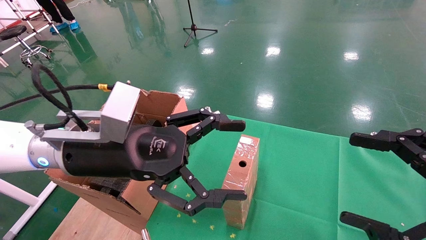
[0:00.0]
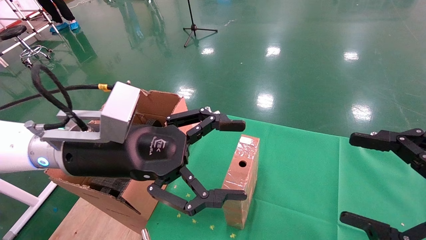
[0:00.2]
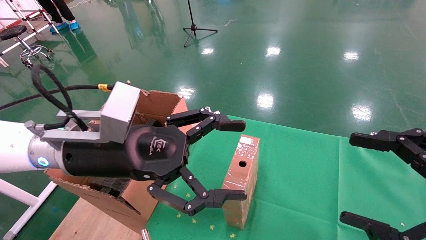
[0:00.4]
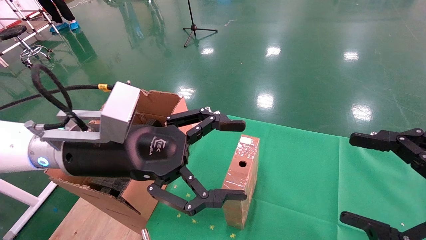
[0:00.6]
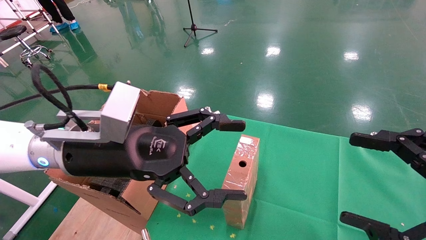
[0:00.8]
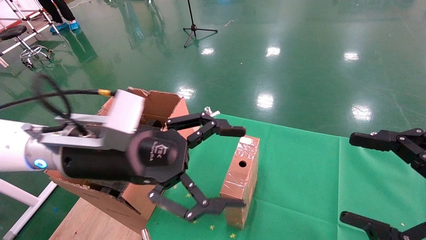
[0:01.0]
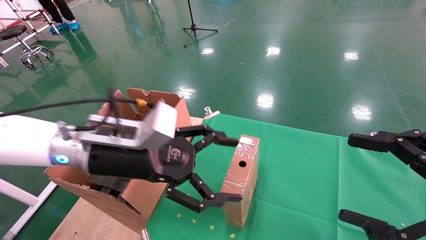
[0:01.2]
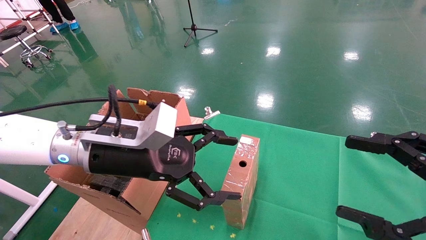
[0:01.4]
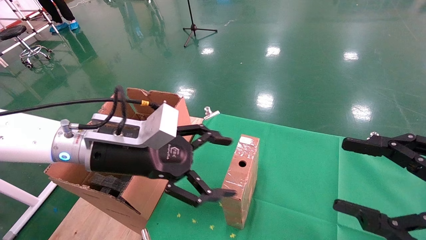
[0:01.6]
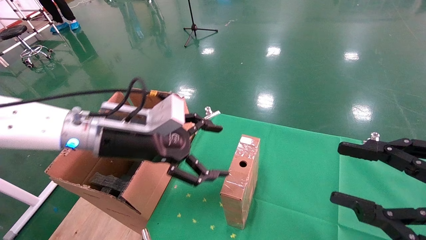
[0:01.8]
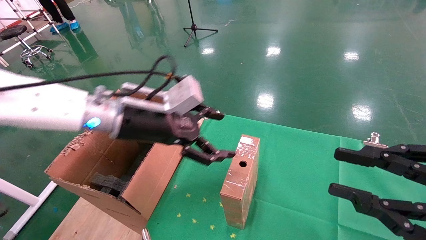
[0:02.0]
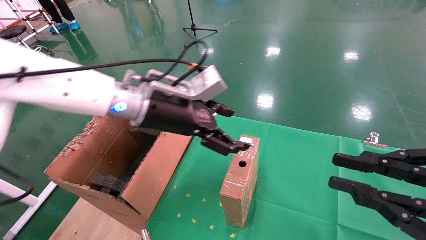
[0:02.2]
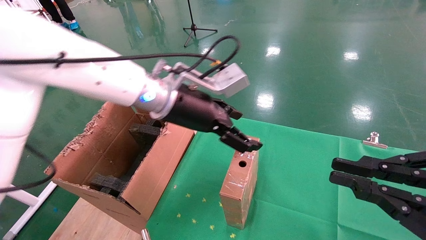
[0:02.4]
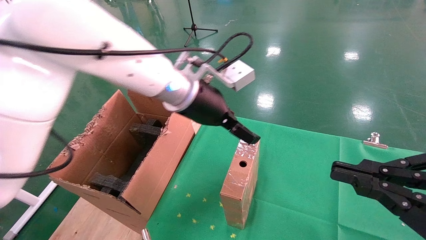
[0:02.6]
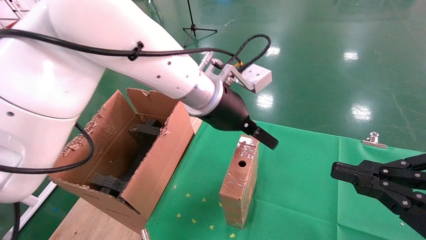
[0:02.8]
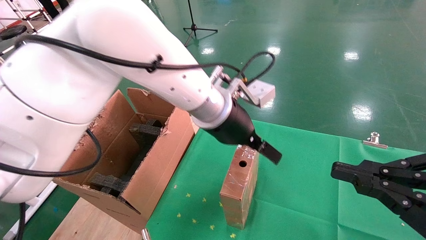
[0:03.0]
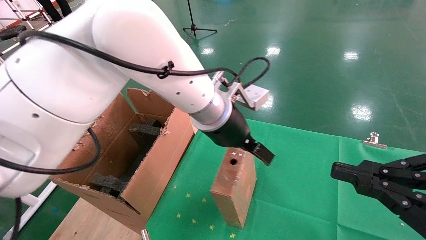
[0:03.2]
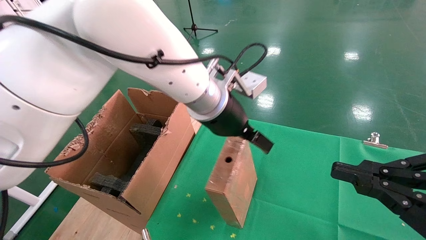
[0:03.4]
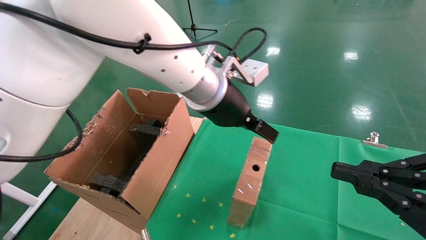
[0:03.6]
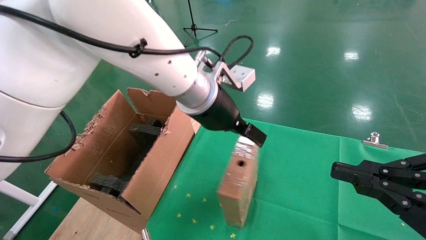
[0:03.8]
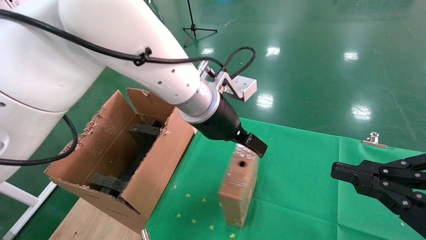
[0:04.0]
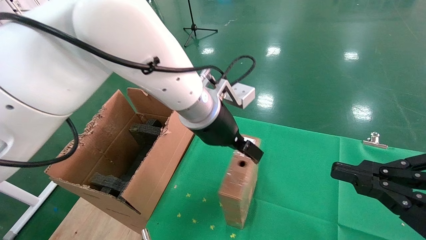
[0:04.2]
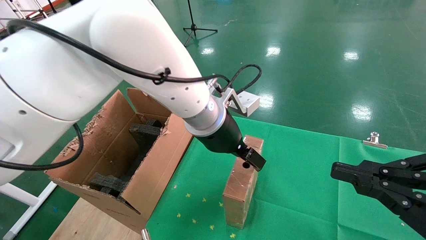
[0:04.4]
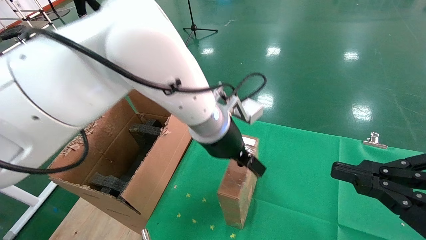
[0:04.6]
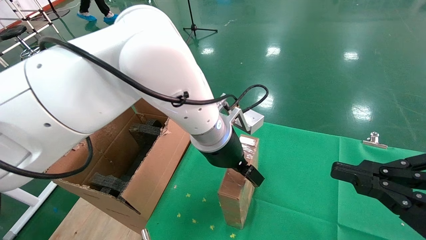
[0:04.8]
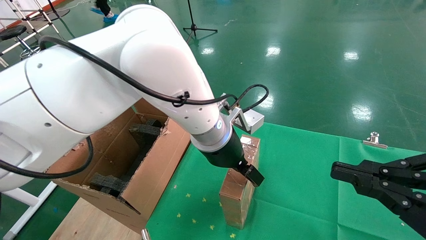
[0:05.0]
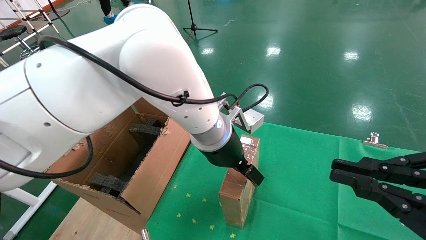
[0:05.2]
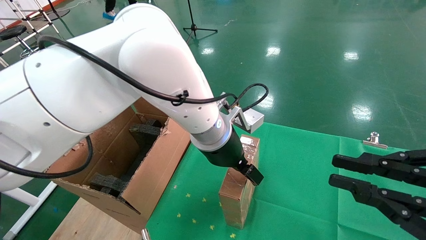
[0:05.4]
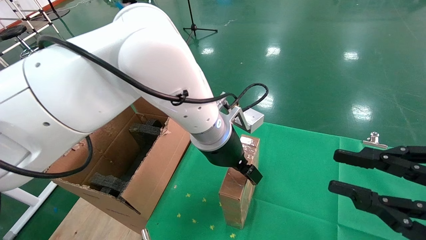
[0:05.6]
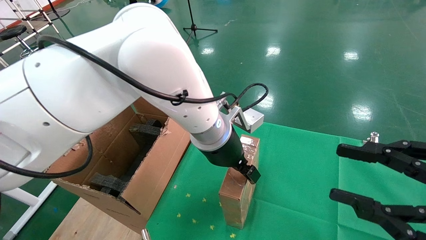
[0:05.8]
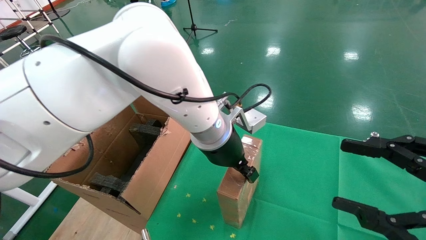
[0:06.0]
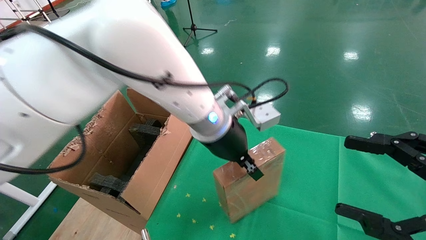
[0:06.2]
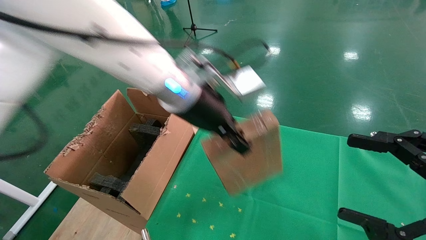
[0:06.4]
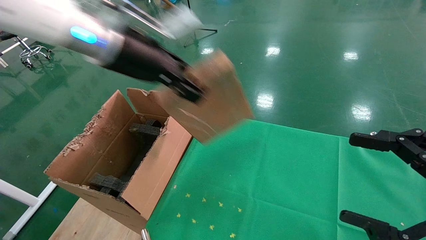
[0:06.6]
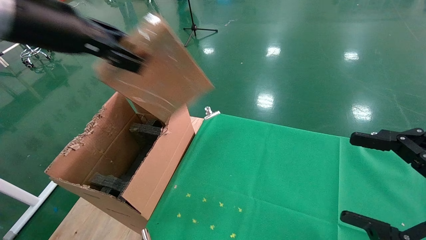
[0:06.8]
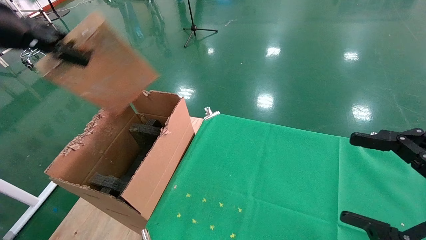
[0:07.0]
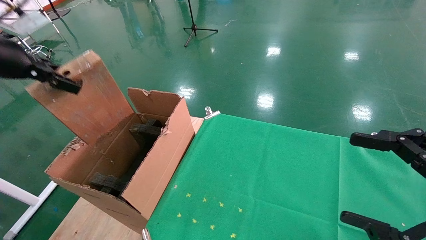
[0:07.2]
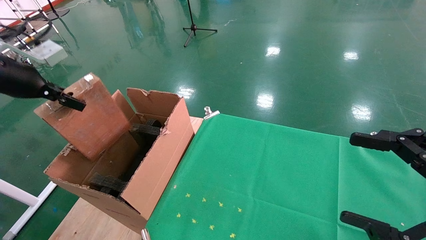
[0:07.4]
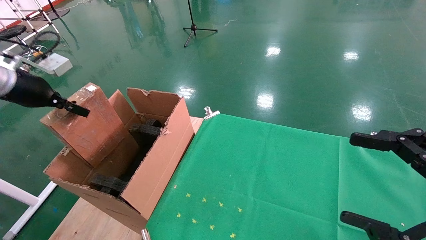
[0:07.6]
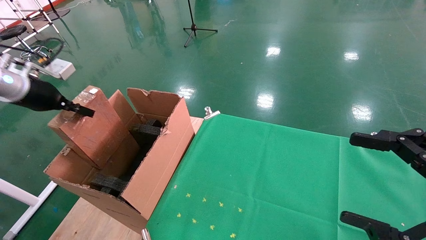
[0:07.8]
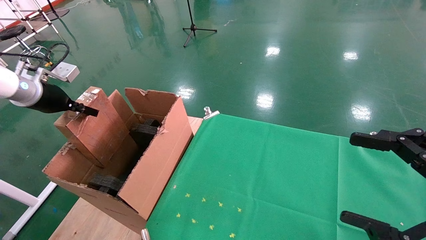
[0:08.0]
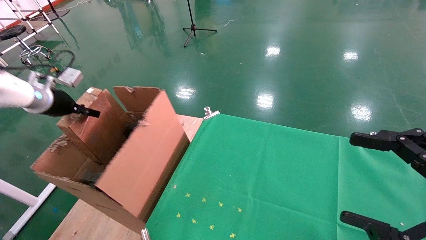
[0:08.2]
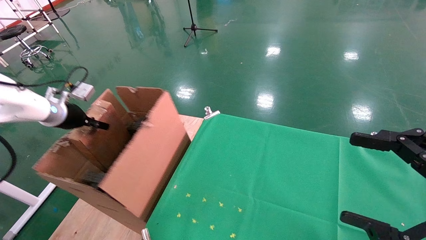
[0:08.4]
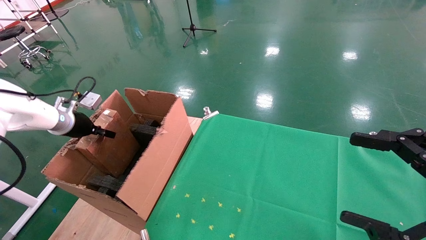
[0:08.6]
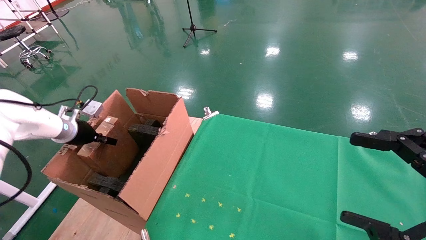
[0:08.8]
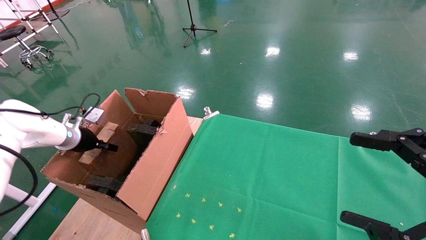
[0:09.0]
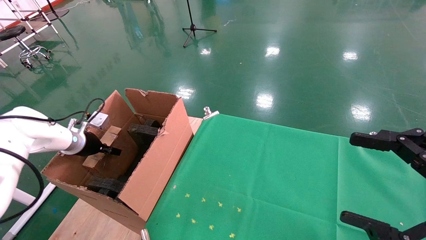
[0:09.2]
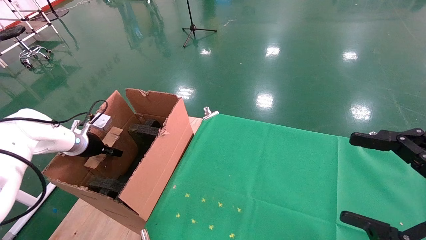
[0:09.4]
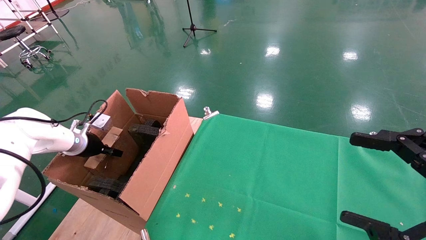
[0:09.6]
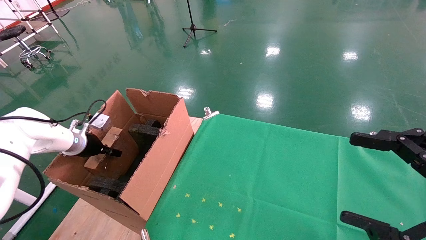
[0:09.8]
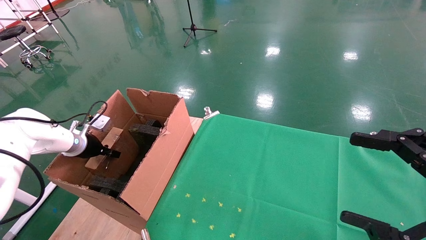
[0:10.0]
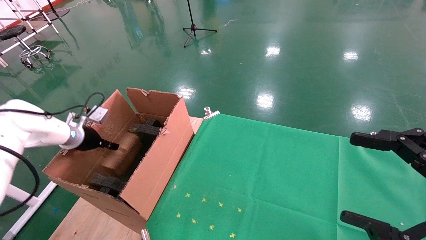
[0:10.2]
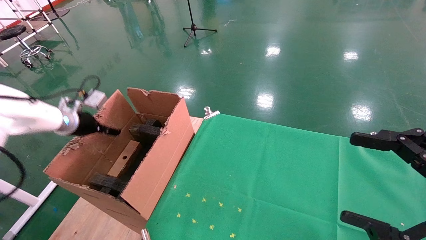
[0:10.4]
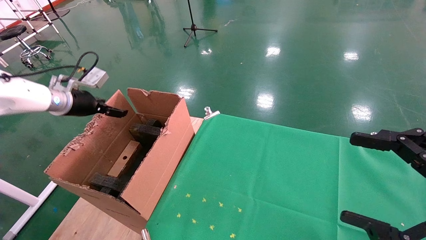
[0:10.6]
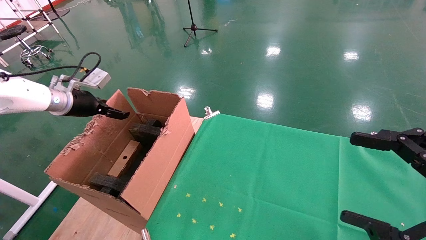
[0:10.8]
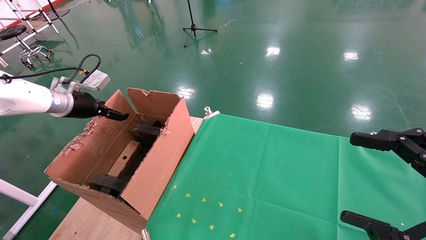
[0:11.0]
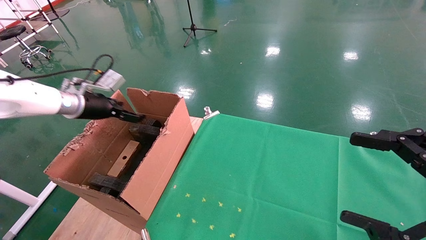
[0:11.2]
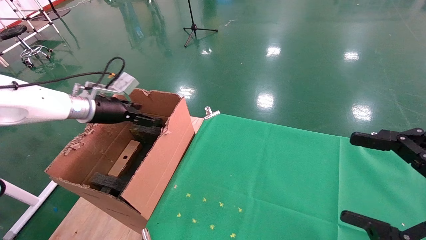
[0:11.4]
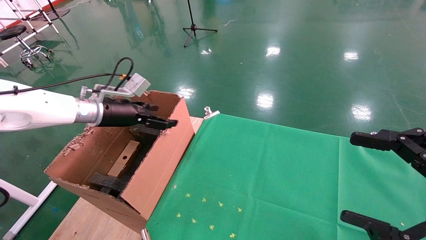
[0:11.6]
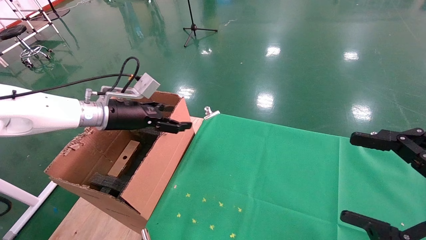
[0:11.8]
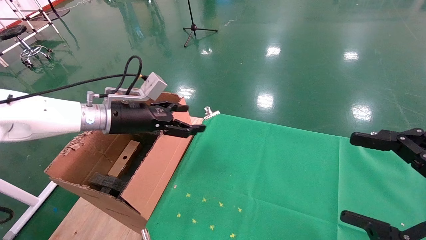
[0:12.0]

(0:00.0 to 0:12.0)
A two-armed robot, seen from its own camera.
Task of the whole recording: using a robotic arm to pick up a cardboard box and palace it the carton.
Step, 0:01.0 - 0:06.2: Pick up the mouse and the power cord paper box.
Step, 0:06.4 - 0:10.8: Place the mouse and the power cord paper box into the container.
0:01.6 - 0:03.0: The left gripper moves to the right and forward, about 20 cm; the right gripper closes.
0:04.4 - 0:06.0: The right gripper opens up; the left gripper closes up.
0:06.0 - 0:07.6: The right gripper opens. Meanwhile the left gripper goes approximately 40 cm to the left, and closes up.
0:07.6 - 0:09.0: The left gripper is displaced downward and forward by about 20 cm.
0:09.0 - 0:10.4: The left gripper is displaced upward by about 5 cm, and opens.
0:10.4 - 0:12.0: The left gripper shifts approximately 20 cm to the right, and opens its fingers.

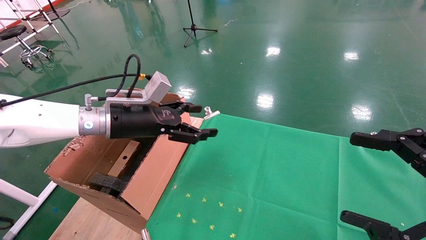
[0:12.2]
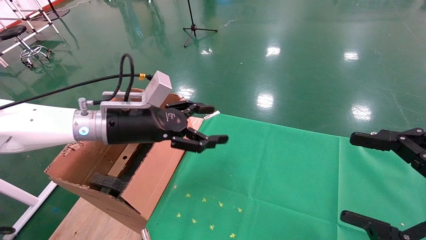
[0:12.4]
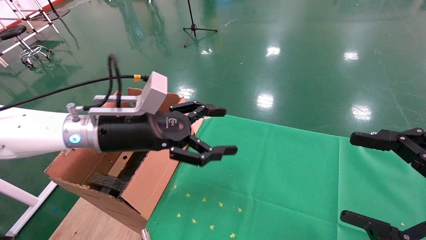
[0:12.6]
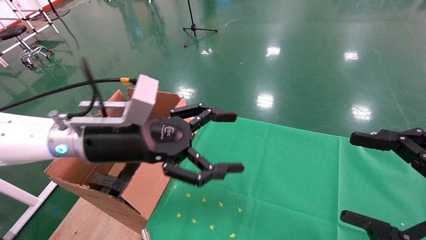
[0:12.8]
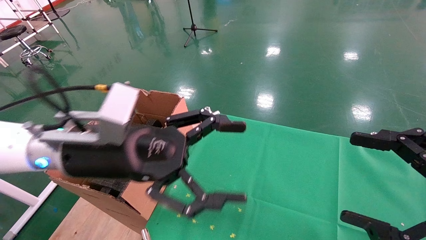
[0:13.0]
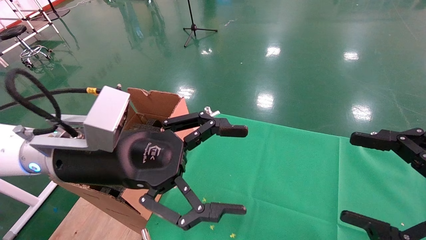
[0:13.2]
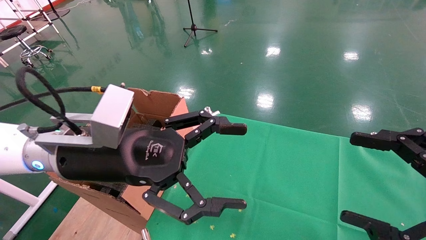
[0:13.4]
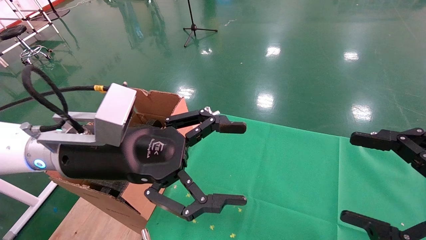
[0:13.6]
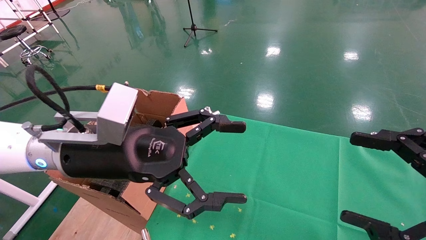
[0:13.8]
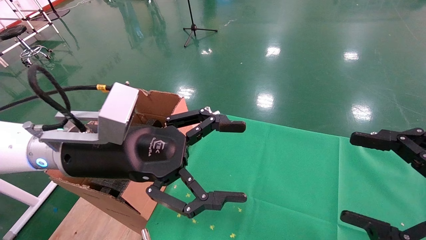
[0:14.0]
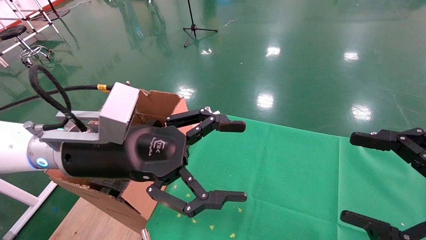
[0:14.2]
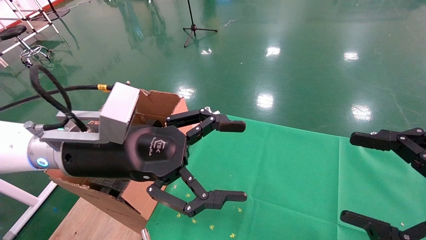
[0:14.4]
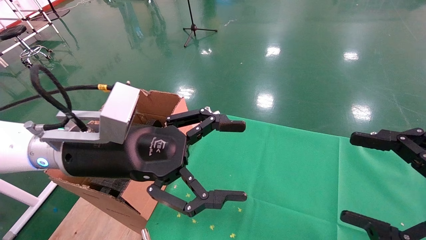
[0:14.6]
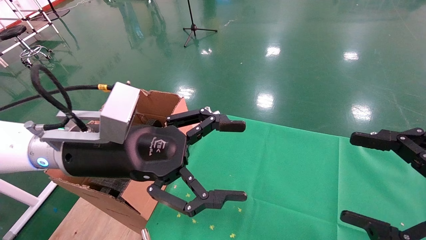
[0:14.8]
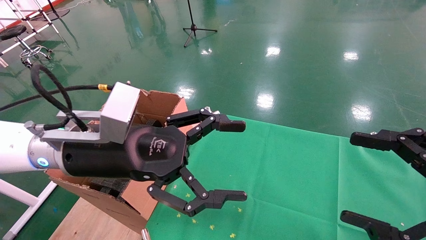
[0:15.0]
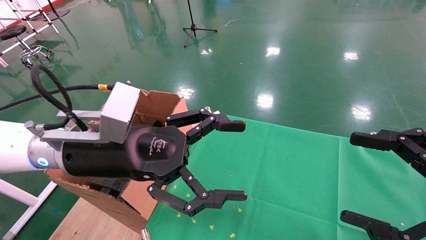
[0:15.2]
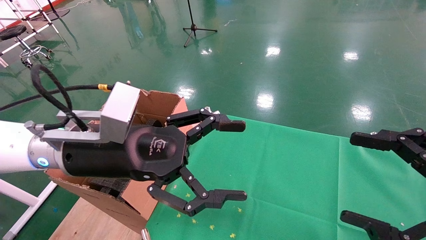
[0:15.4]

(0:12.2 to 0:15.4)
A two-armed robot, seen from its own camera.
Task of the whole recording: using a robotic arm to pick up a cardboard box and palace it the carton.
0:12.2 - 0:13.8: The left gripper is displaced backward and to the right by some 15 cm.
0:13.8 - 0:15.4: Both grippers stay put.
